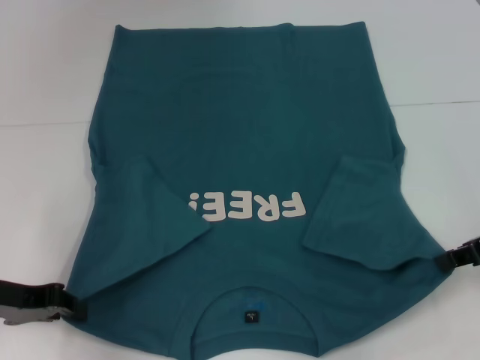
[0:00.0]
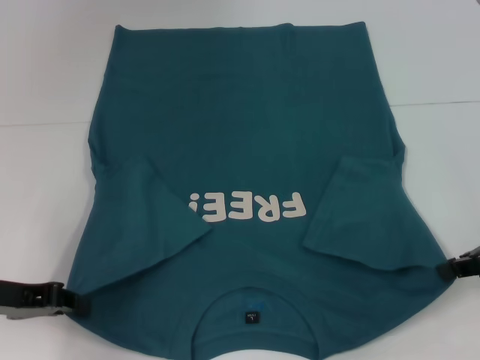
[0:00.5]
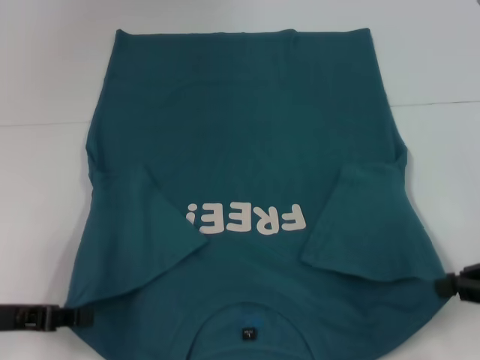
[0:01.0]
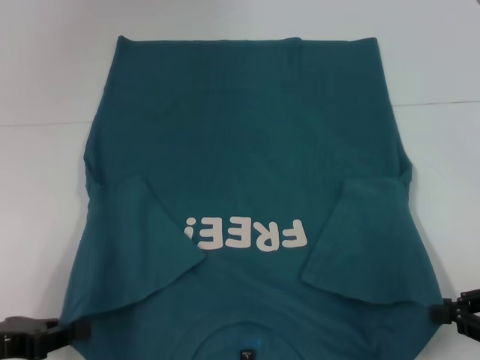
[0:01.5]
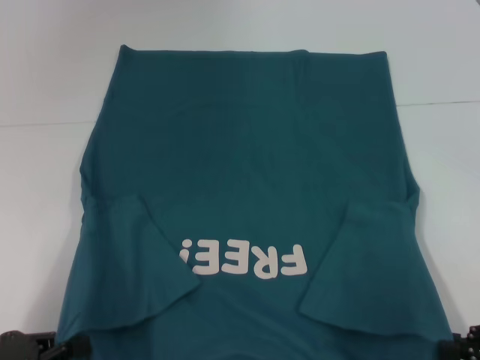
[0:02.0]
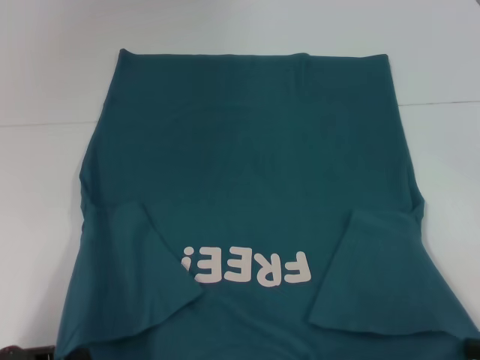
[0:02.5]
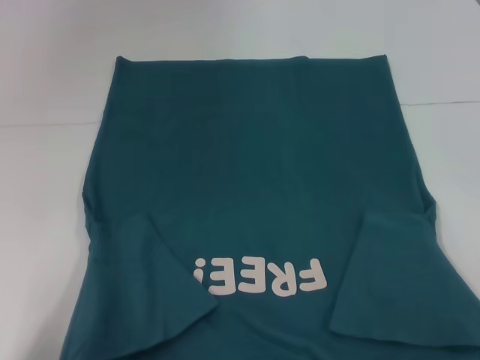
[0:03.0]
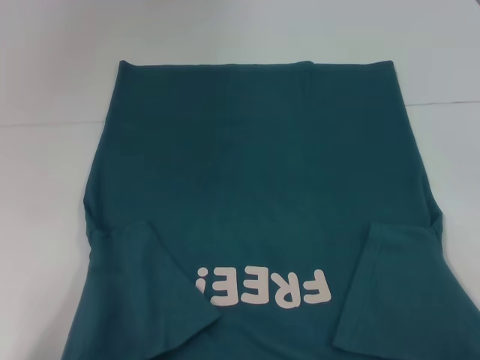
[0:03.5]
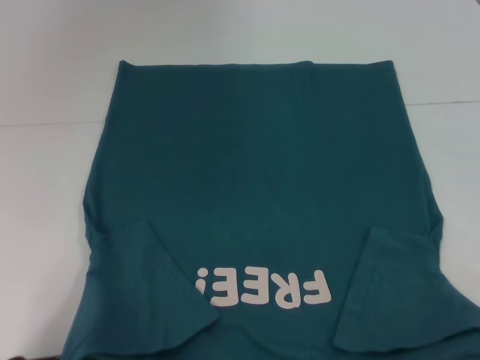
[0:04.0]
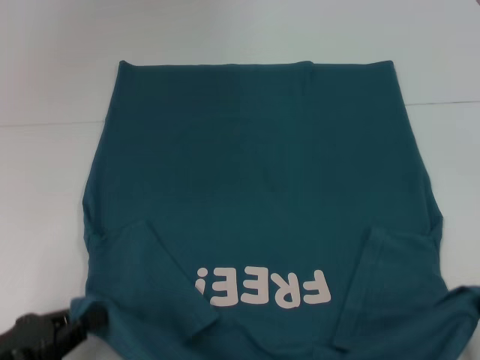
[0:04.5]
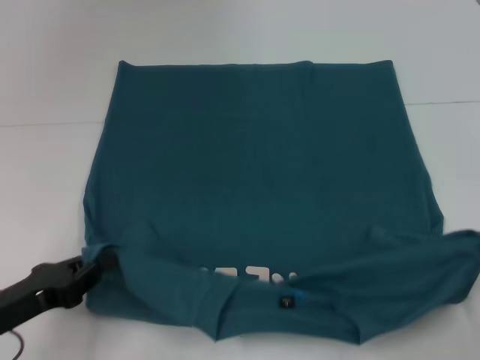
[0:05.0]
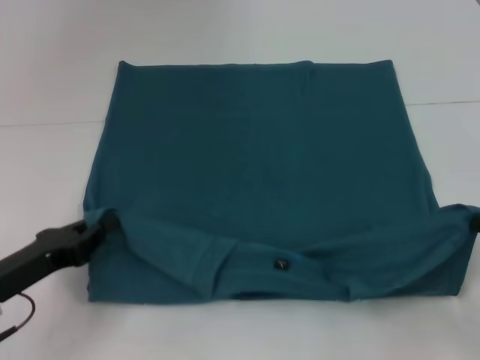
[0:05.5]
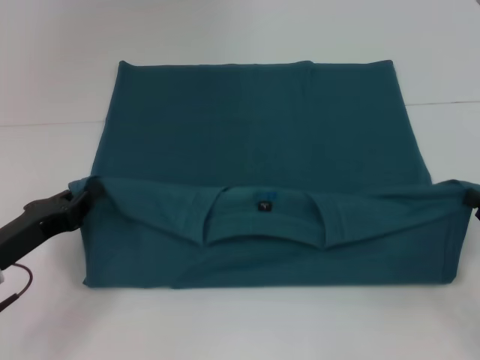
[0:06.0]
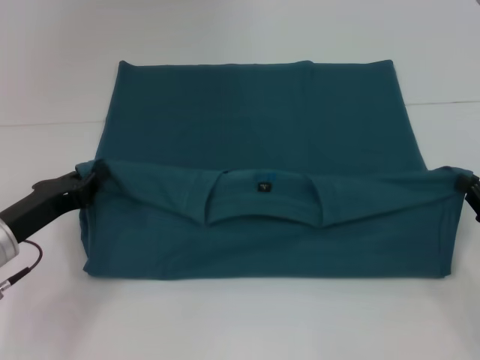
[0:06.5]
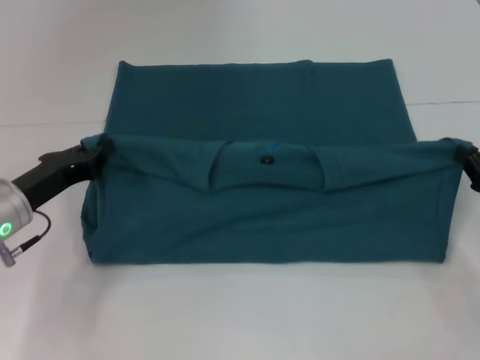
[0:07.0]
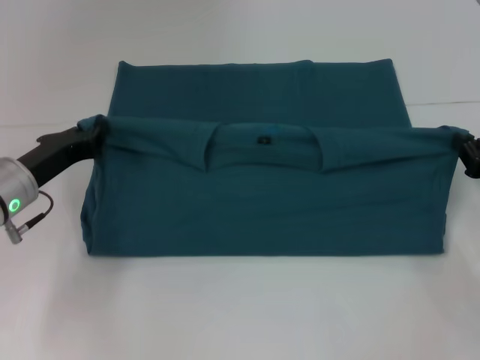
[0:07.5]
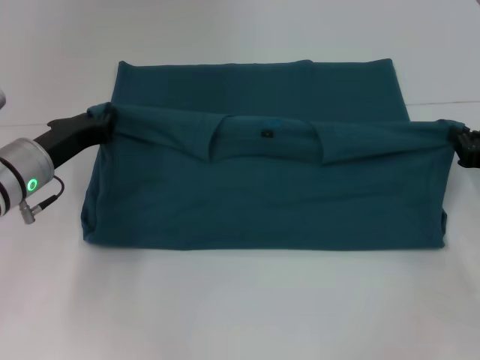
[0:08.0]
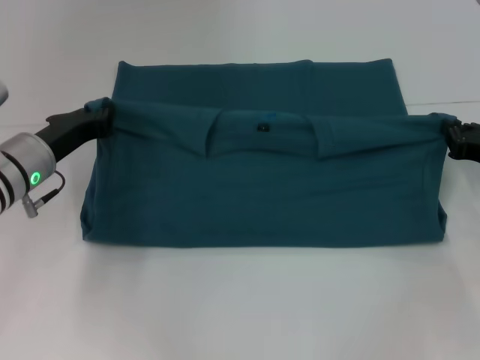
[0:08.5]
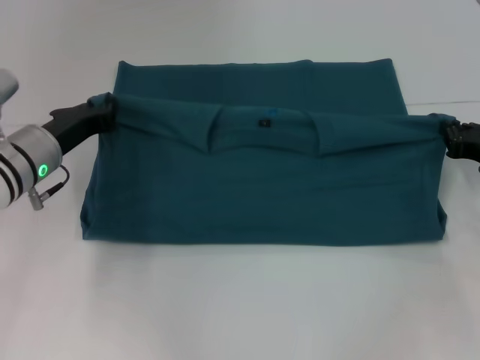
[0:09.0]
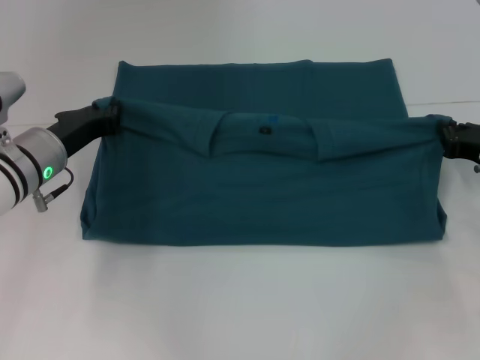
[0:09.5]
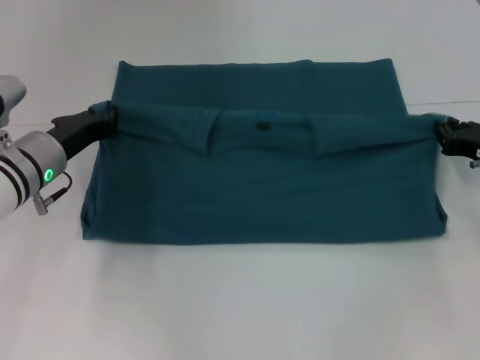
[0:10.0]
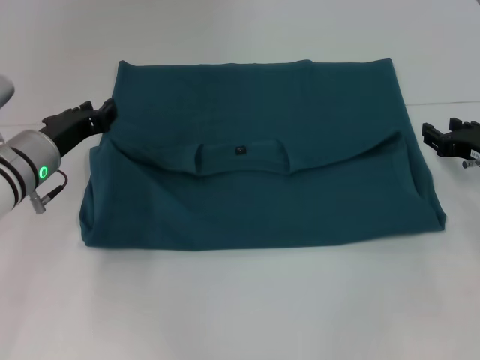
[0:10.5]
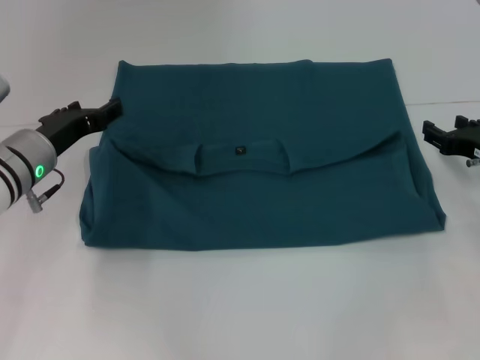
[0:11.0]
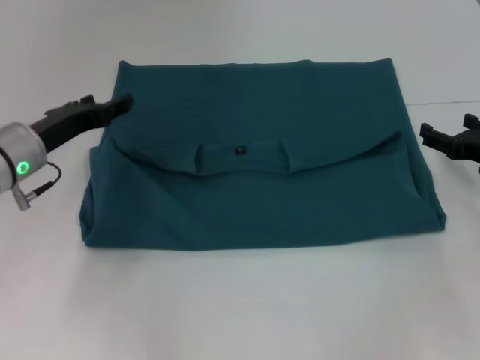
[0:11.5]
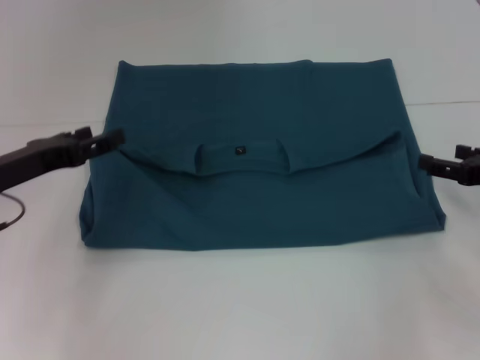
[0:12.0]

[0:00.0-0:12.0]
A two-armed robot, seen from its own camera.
Step, 0:00.0 to 0:10.5: Fold the clothes to the left.
Step, 0:00.0 to 0:10.5: Fold the clothes to the right.
0:00.0 to 0:02.0: The left gripper shifts approximately 10 cm backward. Meanwhile the right gripper goes some 15 cm backward and downward.
0:02.0 to 0:04.0: The right gripper travels backward by approximately 5 cm.
0:04.0 to 0:06.0: The two grippers go roughly 10 cm forward.
0:06.0 to 0:08.0: Both grippers move forward, approximately 10 cm.
0:08.0 to 0:10.0: The grippers stay close to where they were, moving slightly.
0:10.0 to 0:12.0: The left gripper travels to the left and backward by some 10 cm, and opens up. Meanwhile the right gripper moves approximately 5 cm, and opens up.

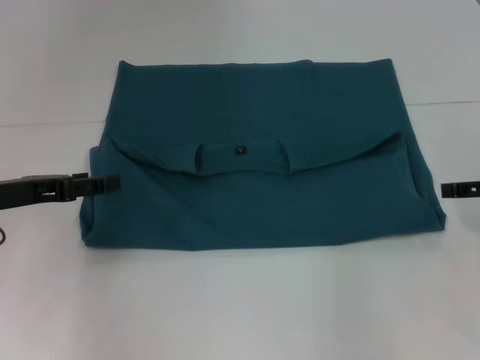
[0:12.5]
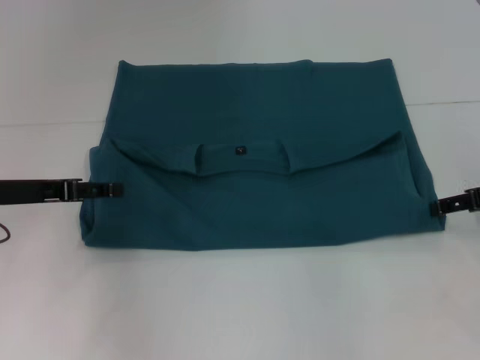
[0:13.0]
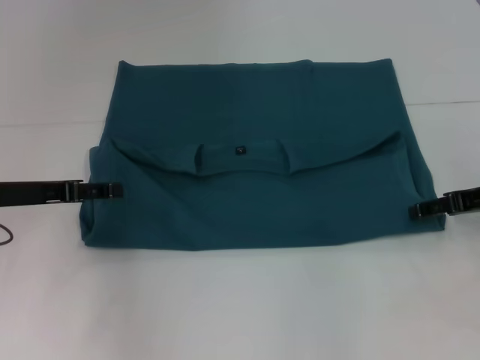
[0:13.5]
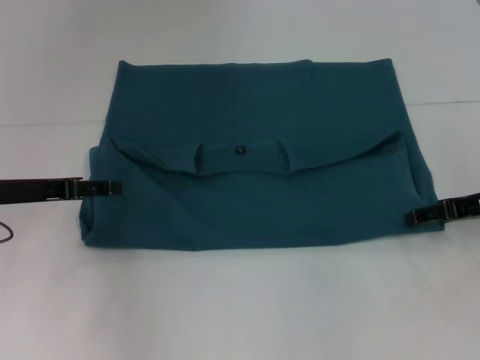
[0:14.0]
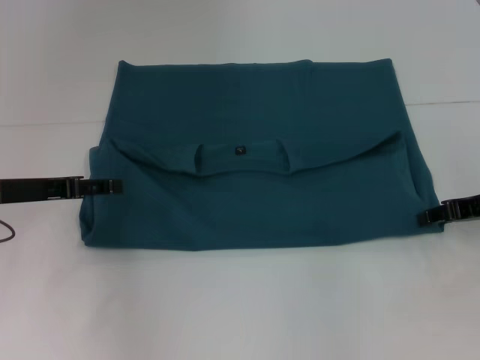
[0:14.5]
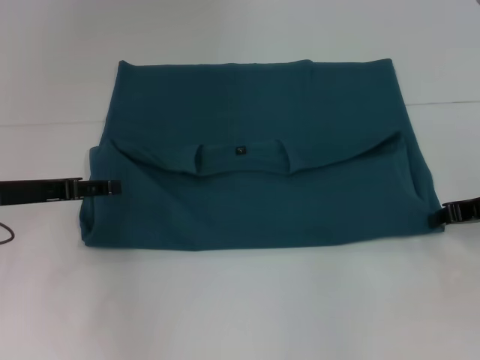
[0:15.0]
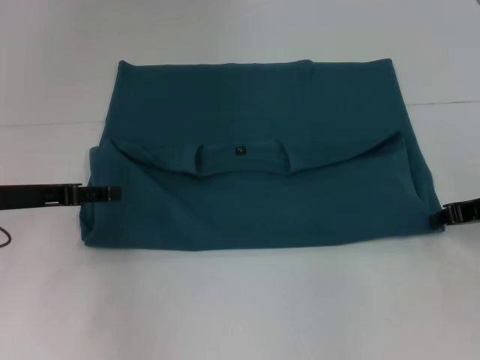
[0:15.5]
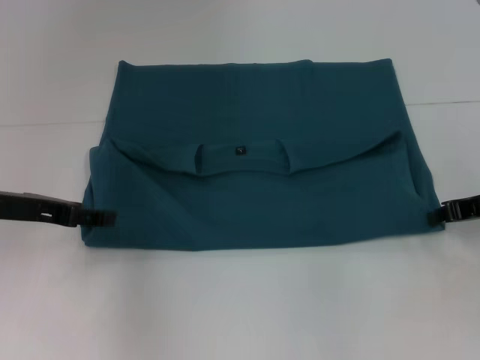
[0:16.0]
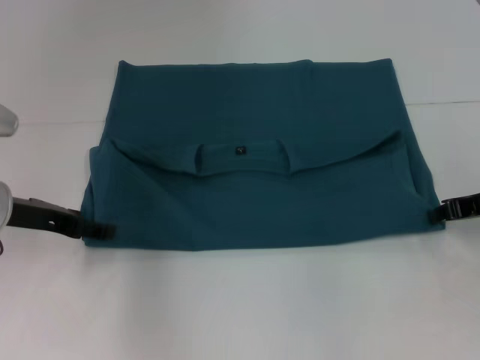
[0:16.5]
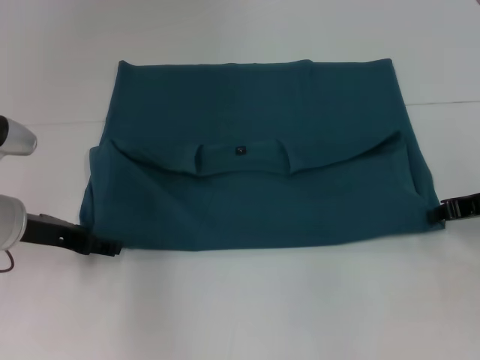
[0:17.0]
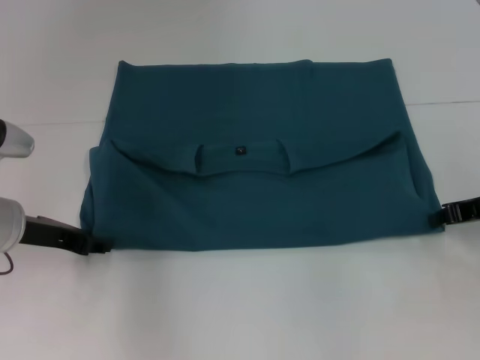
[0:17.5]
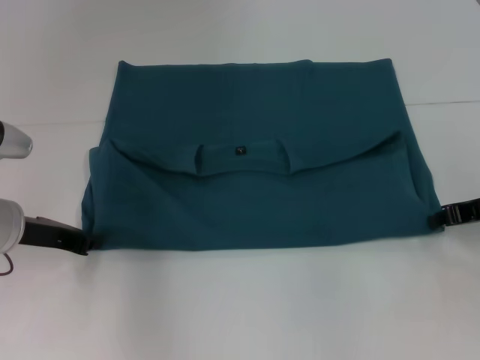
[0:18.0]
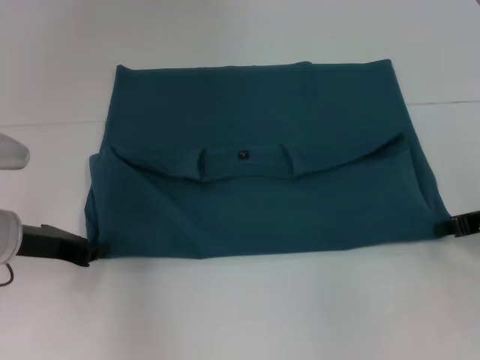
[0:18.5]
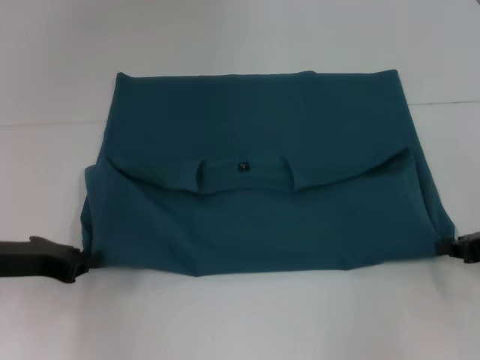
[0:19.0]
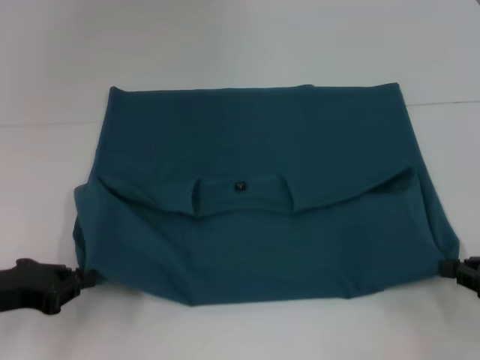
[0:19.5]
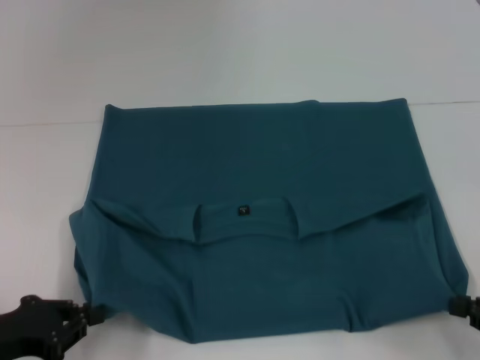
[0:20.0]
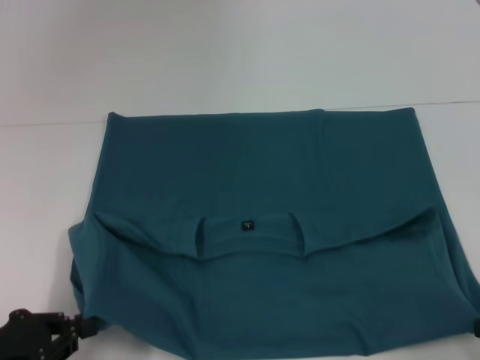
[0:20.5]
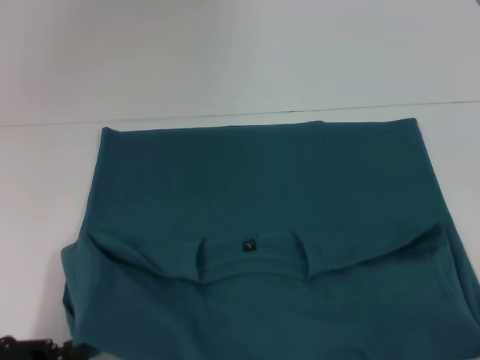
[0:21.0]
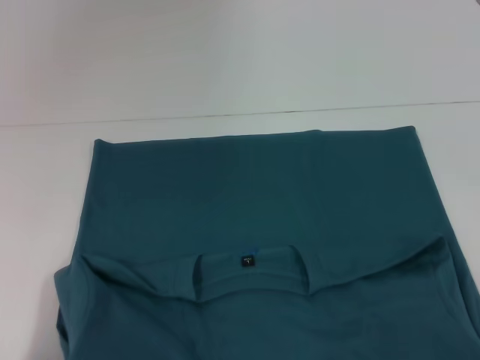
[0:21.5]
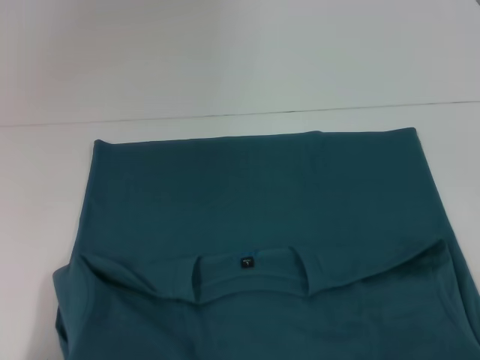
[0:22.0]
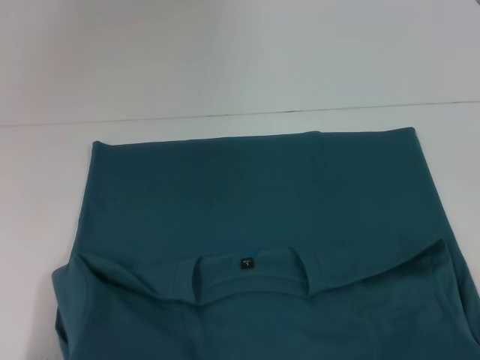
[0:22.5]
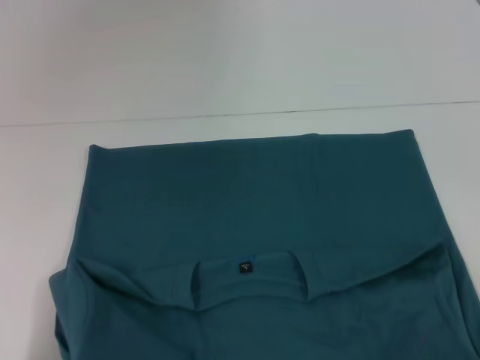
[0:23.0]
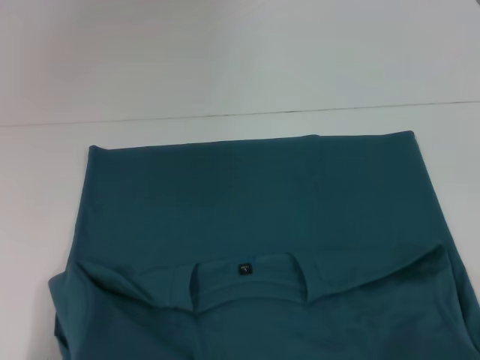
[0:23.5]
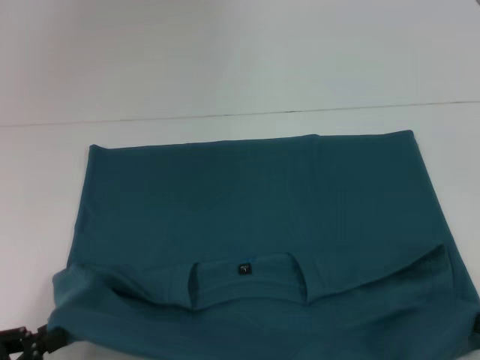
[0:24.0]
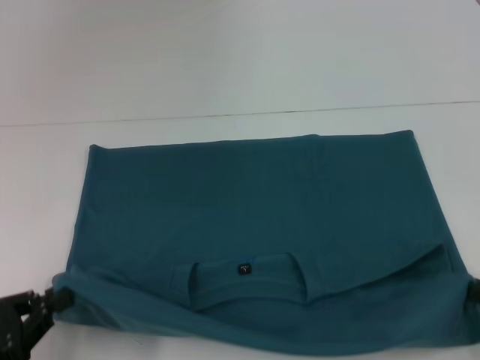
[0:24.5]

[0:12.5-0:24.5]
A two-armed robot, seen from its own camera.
Step, 0:12.5 to 0:20.0: Pull the clothes with your left hand.
Step, 0:12.5 to 0:20.0: Pull the clothes with your right hand.
0:12.5 to 0:14.5: The right gripper changes place by some 5 cm, and closes up.
0:16.5 to 0:18.5: The left gripper closes up.
0:18.5 to 0:20.5: The two grippers go some 15 cm backward.
0:20.5 to 0:22.5: The left gripper is displaced backward by roughly 5 cm.
0:22.5 to 0:24.5: The right gripper is displaced forward by about 5 cm.

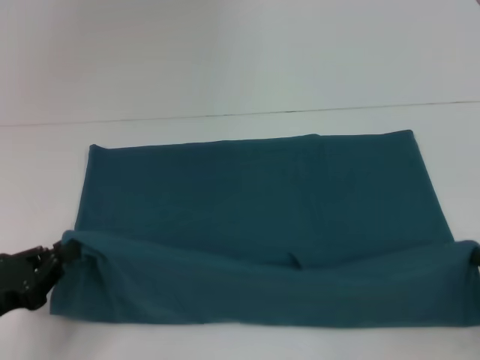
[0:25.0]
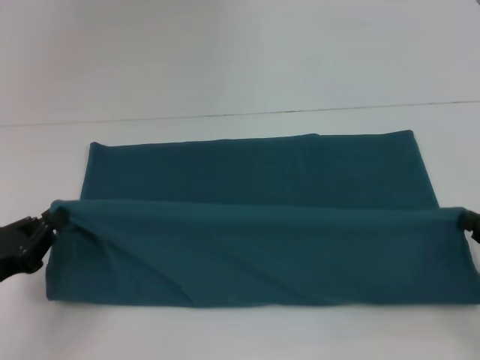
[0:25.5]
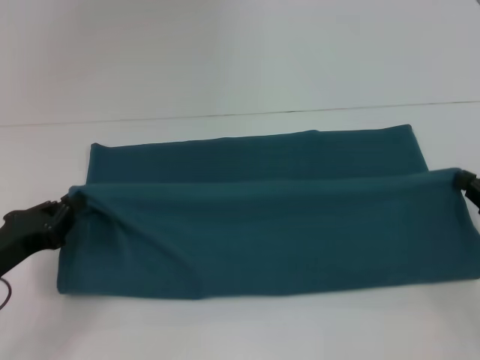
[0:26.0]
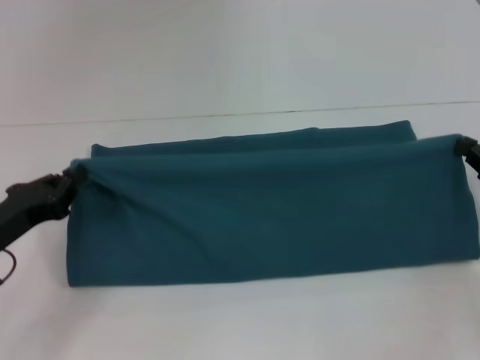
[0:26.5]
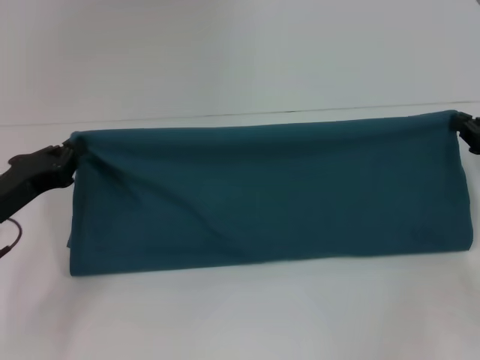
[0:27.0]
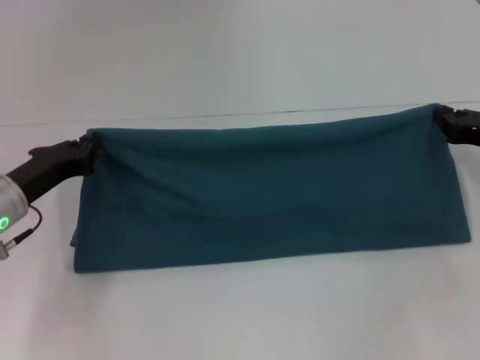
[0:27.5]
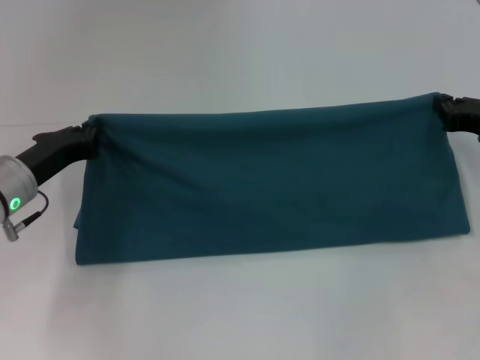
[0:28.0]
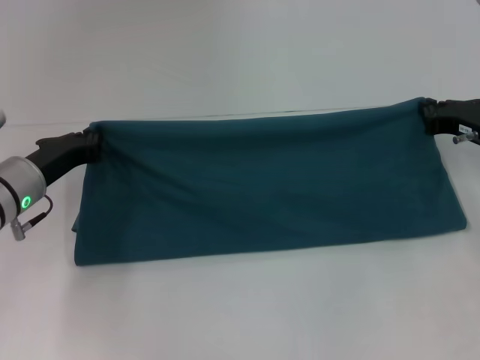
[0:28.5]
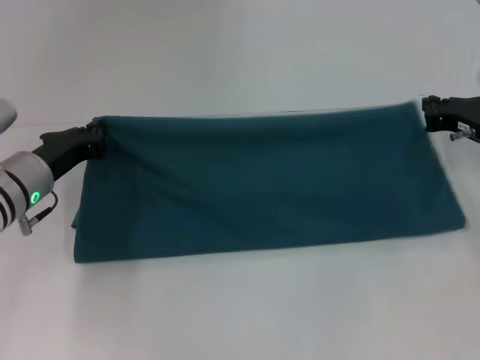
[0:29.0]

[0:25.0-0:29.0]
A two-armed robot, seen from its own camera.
0:25.0 to 0:27.0: Both grippers travel together forward, some 10 cm.
0:27.0 to 0:29.0: The right gripper goes approximately 10 cm forward and to the left, while the left gripper shifts roughly 5 cm forward.
